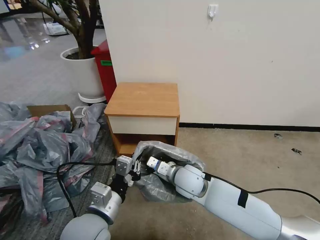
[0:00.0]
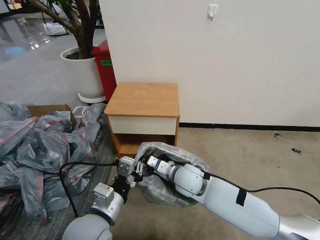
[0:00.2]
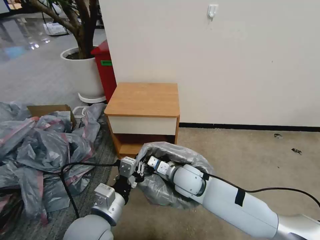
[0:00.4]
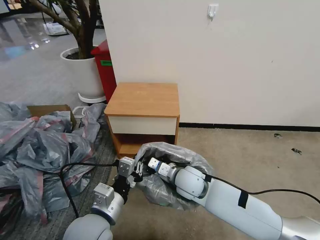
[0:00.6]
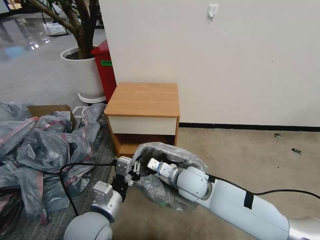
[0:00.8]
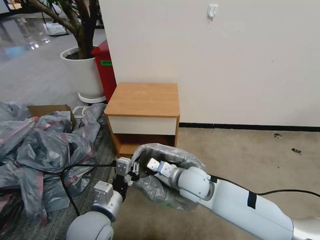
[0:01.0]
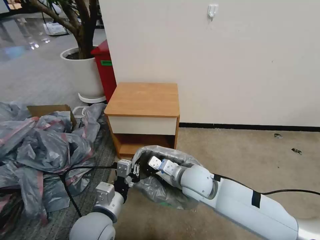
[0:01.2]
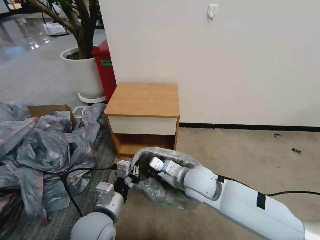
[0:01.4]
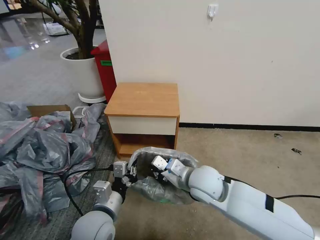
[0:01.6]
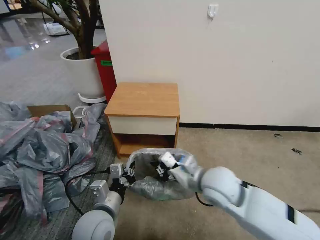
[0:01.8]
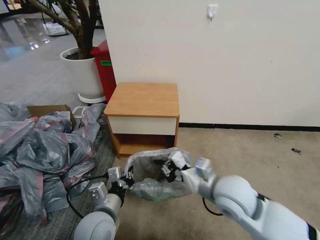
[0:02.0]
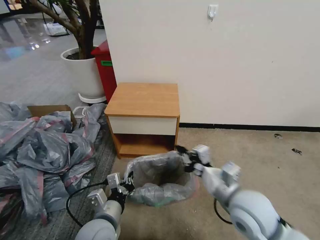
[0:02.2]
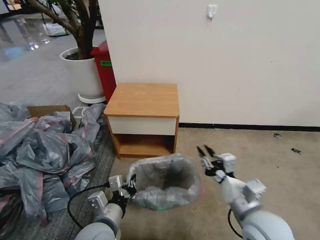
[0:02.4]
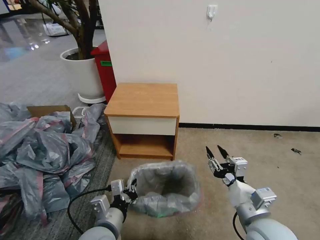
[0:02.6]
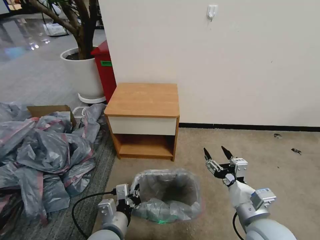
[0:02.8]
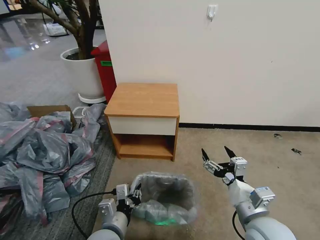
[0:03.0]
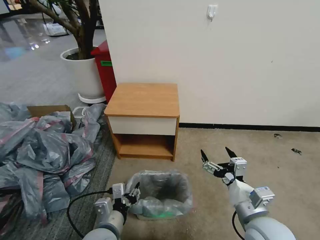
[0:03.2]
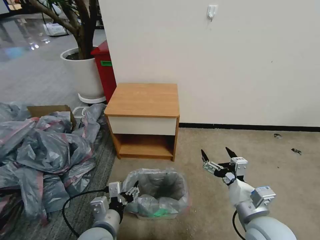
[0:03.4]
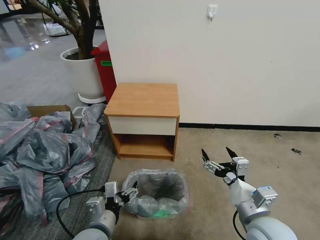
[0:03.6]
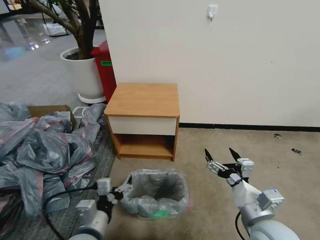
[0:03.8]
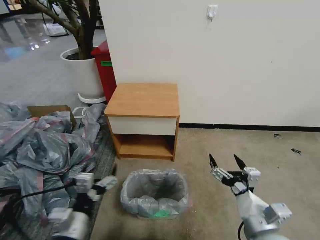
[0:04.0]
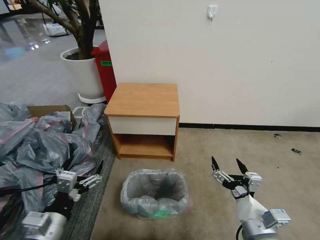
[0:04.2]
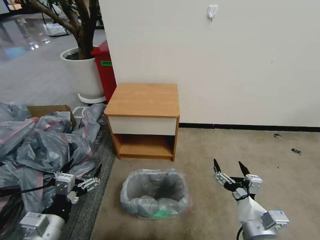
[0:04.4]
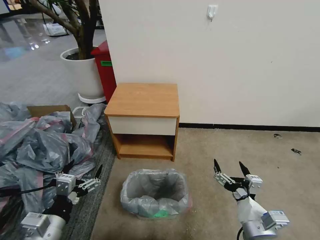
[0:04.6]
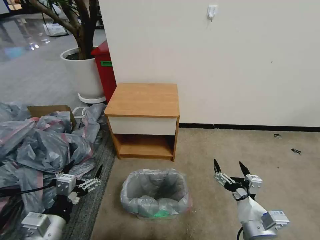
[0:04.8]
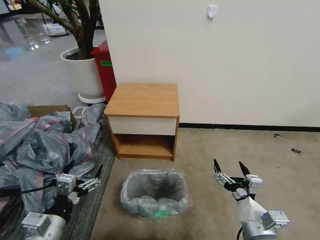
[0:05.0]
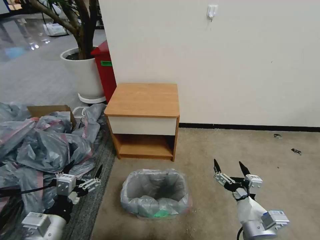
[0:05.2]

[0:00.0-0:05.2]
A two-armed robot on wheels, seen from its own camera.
Task of the whole recording: Pick up the garbage bag from the table and place it over the trash can.
0:00.0 to 0:01.8: The right gripper moves upward and to the right, about 10 cm.
0:01.8 to 0:03.4: The right gripper travels backward and to the right by approximately 15 cm, and opens up, while the left gripper opens.
0:03.4 to 0:05.2: The left gripper heads to the left, covering approximately 10 cm. Meanwhile the right gripper ends up about 5 cm from where it was.

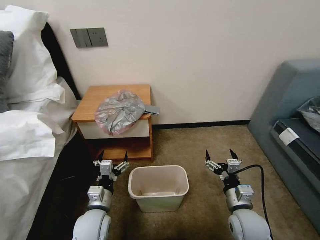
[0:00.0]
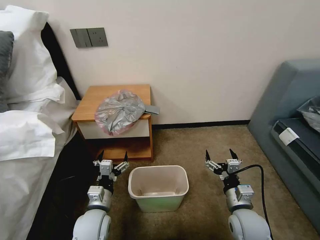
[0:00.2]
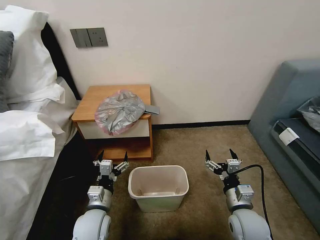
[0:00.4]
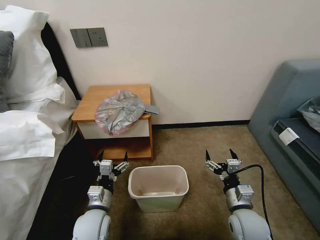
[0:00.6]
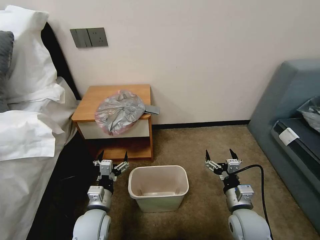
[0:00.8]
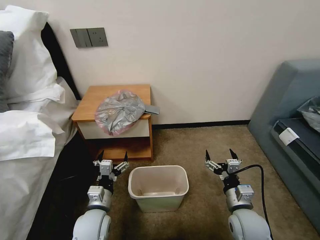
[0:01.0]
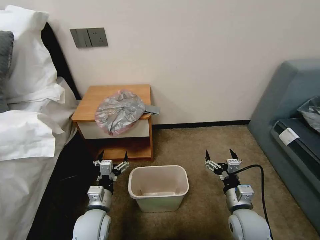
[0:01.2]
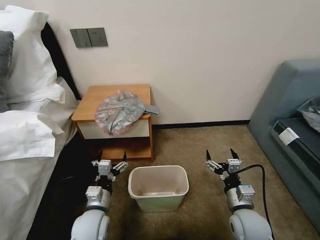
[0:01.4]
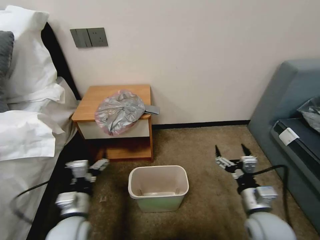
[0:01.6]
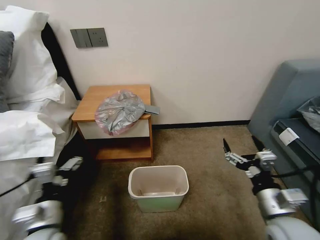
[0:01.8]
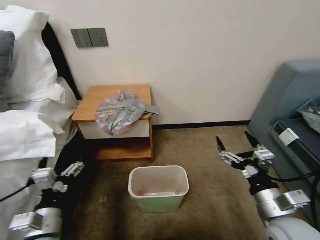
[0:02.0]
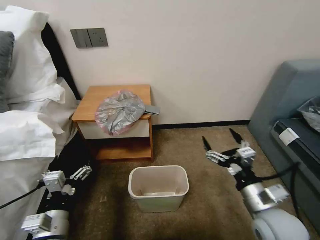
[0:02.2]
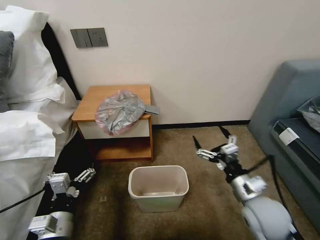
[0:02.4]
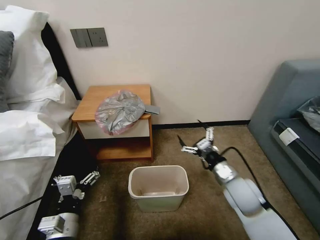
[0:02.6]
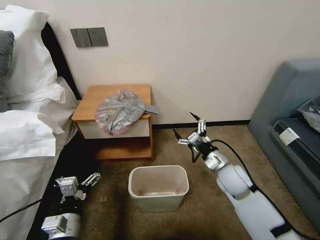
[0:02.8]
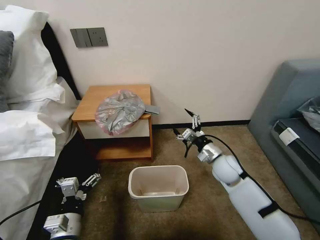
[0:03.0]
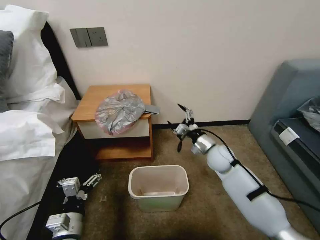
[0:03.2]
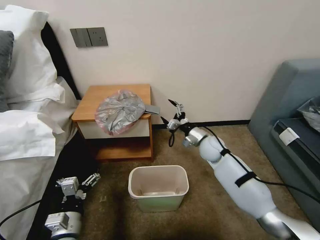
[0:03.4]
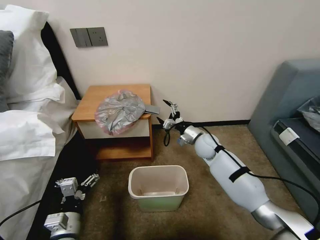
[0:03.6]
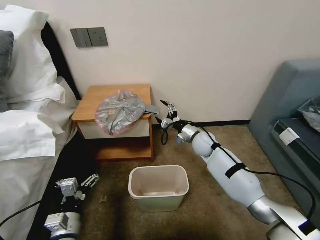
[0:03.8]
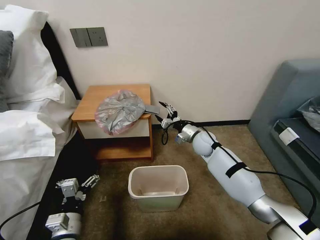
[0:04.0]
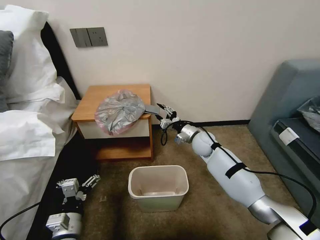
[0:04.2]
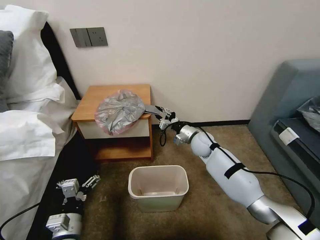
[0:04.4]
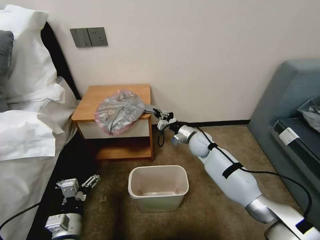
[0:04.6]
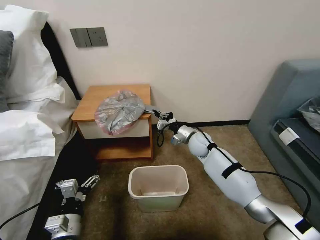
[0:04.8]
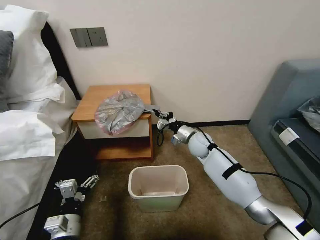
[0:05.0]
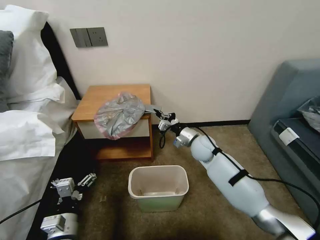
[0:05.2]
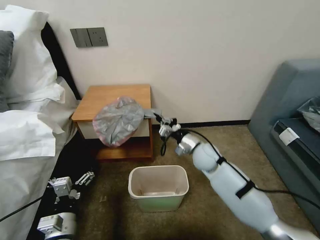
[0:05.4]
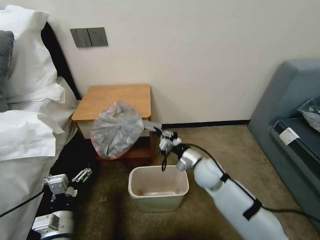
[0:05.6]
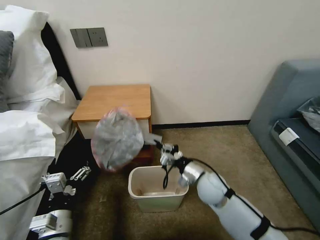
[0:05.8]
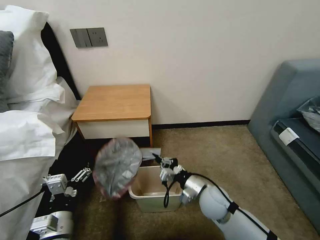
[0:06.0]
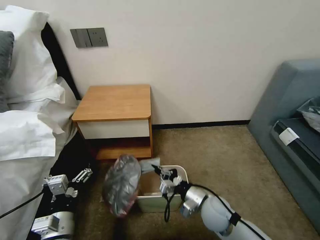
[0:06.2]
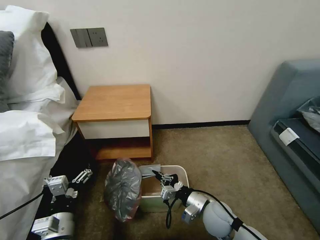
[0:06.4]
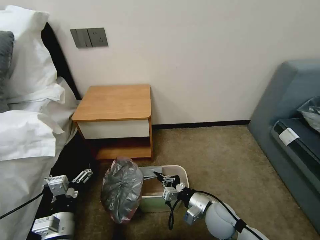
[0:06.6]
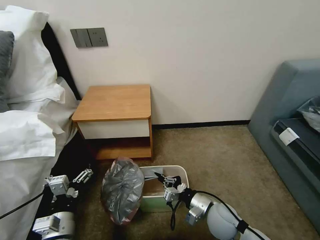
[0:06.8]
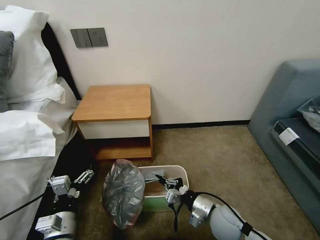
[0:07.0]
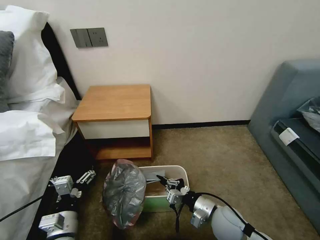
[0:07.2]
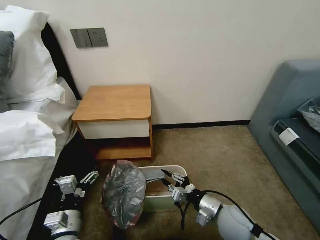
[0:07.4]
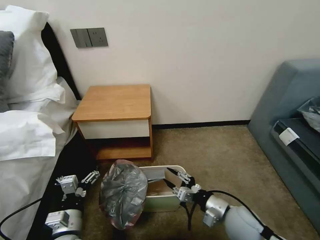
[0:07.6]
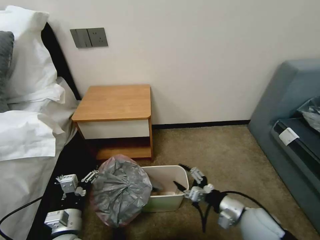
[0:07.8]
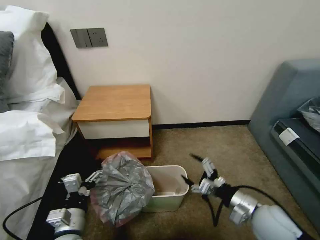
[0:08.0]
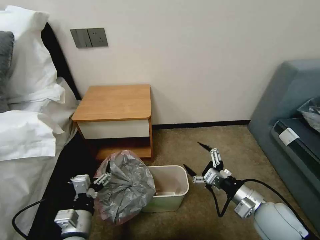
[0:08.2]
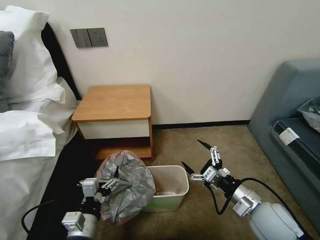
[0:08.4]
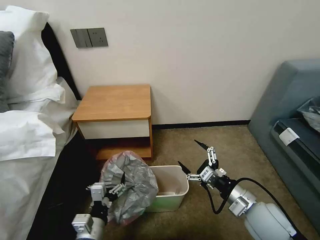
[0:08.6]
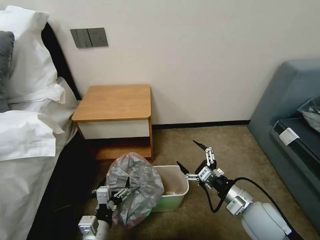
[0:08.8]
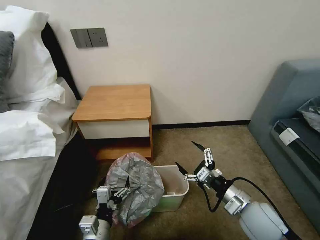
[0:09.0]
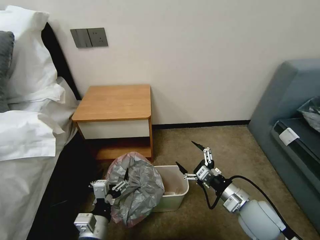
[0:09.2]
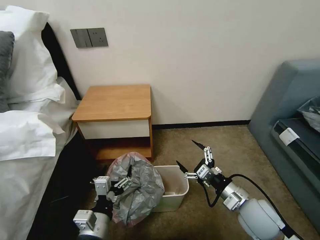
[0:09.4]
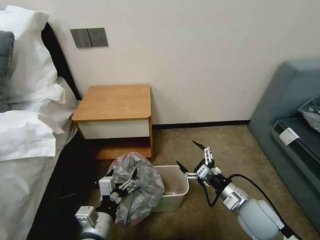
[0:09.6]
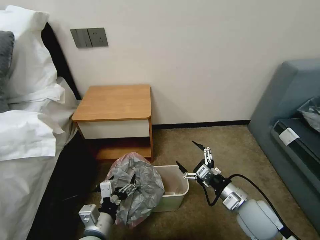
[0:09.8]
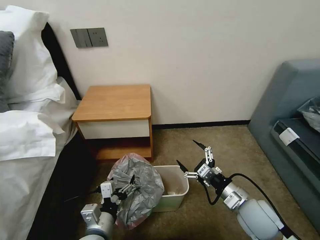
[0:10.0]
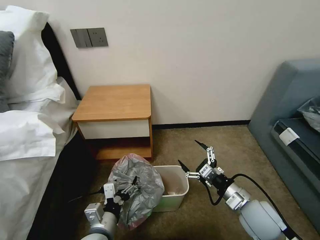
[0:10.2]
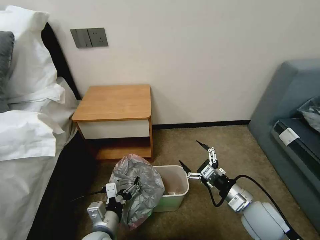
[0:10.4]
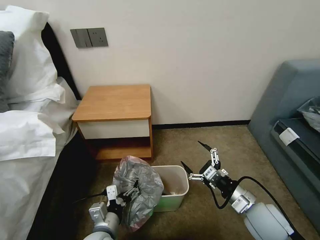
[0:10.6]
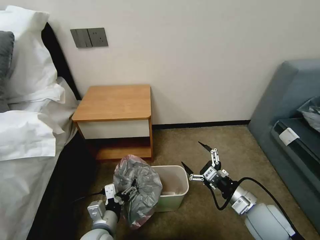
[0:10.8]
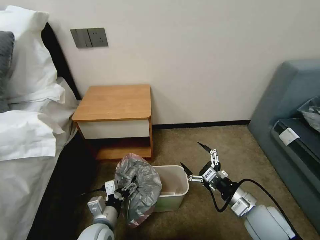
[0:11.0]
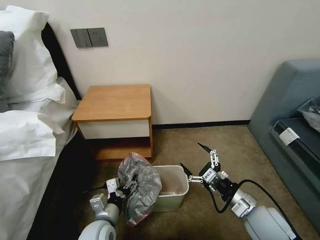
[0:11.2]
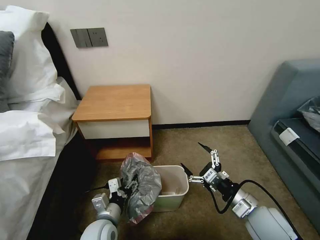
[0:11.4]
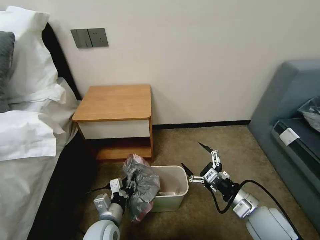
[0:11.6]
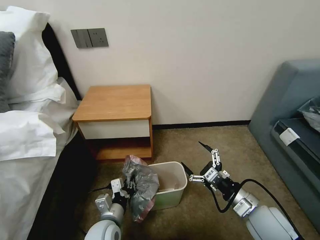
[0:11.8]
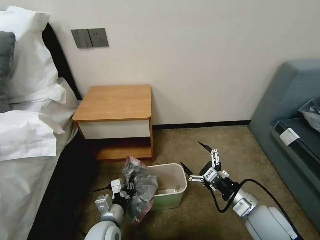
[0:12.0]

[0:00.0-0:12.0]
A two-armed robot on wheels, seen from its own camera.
Task of the whole recording: Pick up the garbage bag from the table and place it over the trash can.
0:01.6 to 0:03.0: The right gripper moves forward, roughly 20 cm. The left gripper heads backward, covering roughly 5 cm.
0:03.0 to 0:04.4: The right gripper travels forward and to the left by approximately 10 cm, and closes.
0:04.4 to 0:06.0: The right gripper is displaced backward by about 20 cm, and closes its fingers.
0:06.0 to 0:07.6: The right gripper goes approximately 10 cm backward and to the right, and opens its fingers.
0:07.6 to 0:09.0: The left gripper heads to the right, covering roughly 5 cm. The right gripper opens its fingers.
0:09.0 to 0:10.4: The grippers move only a little.
0:10.4 to 0:12.0: The left gripper closes up.

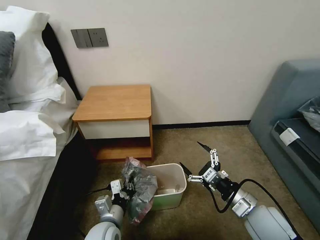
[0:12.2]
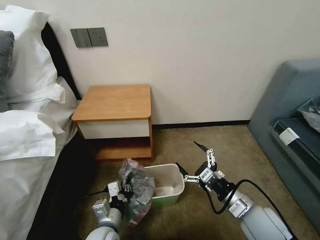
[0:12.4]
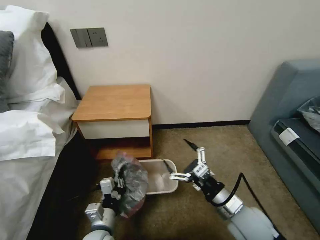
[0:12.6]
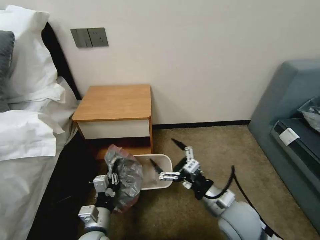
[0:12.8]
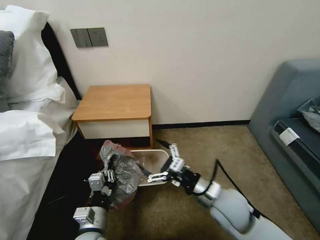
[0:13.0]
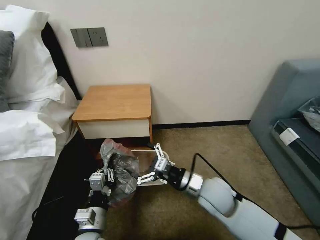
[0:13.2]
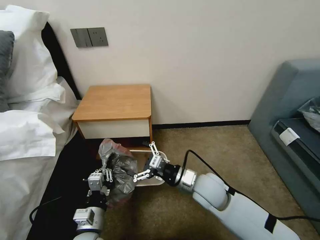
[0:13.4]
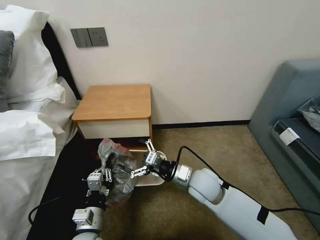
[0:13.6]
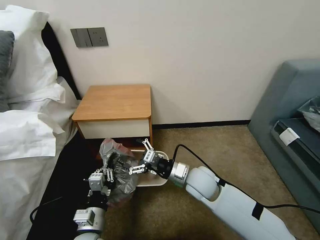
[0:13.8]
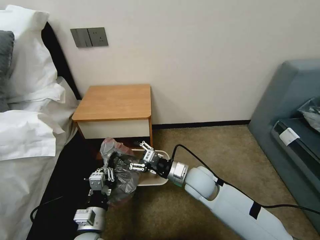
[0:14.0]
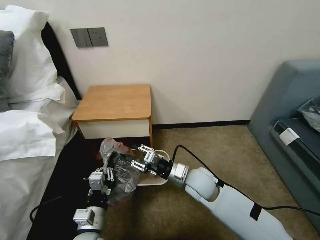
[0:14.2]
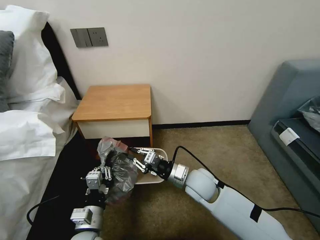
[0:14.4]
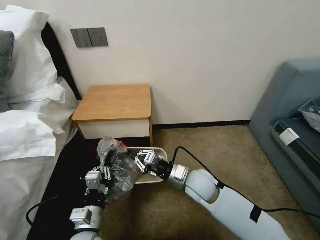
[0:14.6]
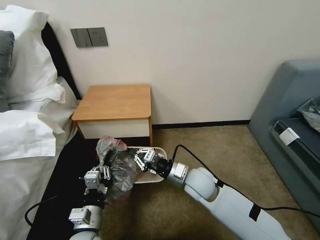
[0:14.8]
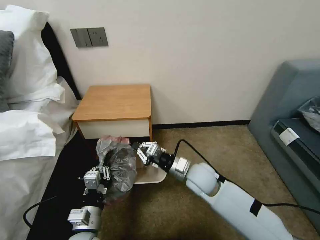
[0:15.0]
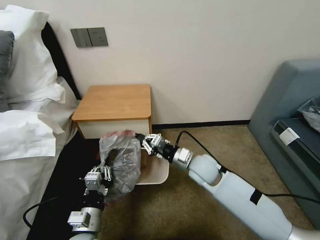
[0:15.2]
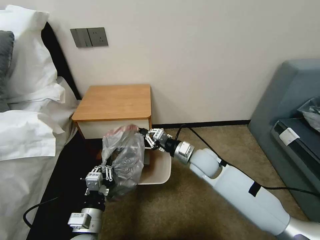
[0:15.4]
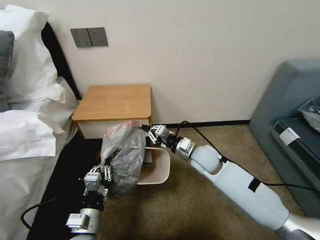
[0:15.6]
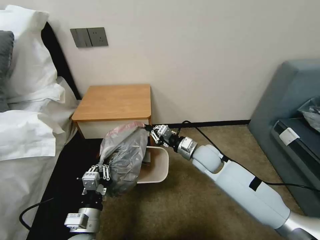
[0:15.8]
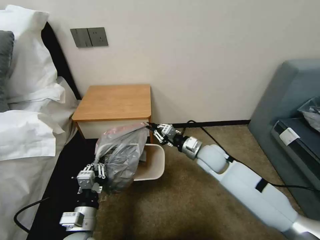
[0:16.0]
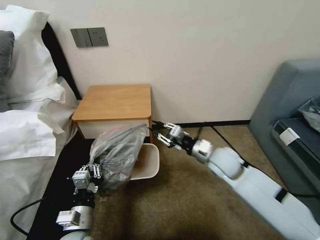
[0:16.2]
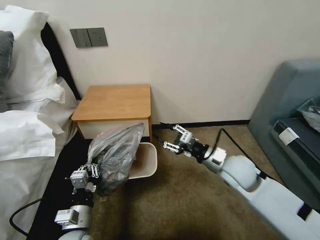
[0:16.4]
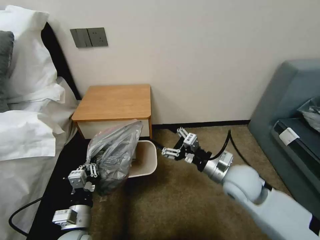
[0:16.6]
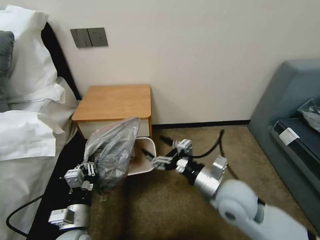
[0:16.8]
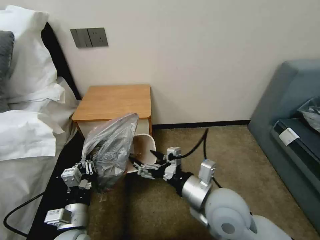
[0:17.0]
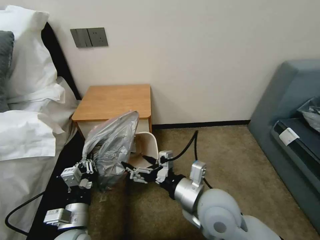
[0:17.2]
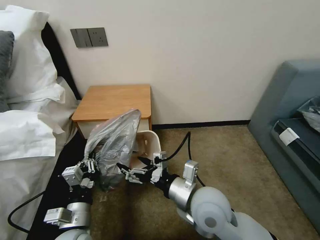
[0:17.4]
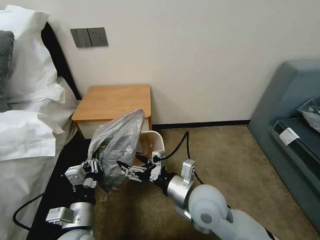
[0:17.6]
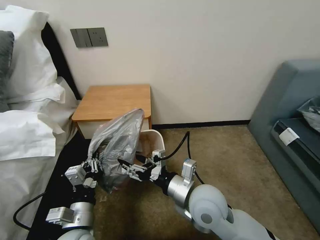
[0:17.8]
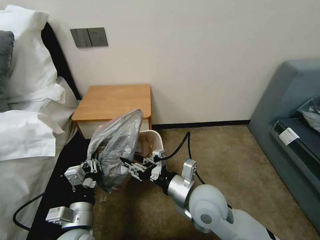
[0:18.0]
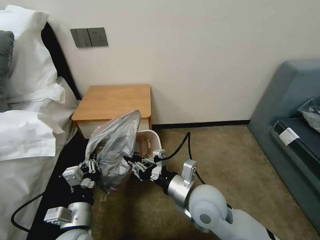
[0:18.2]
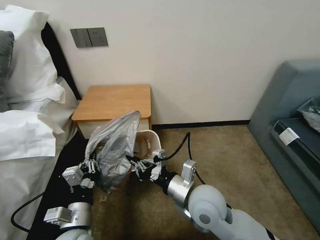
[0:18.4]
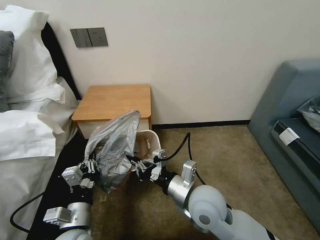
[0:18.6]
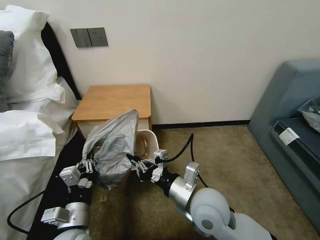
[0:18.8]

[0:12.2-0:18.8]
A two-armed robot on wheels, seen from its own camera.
Task of the whole recording: Pick up the garbage bag from the table and place it over the trash can.
0:12.2 to 0:13.8: The left gripper moves approximately 5 cm. The right gripper shifts approximately 20 cm to the left and forward.
0:13.8 to 0:15.4: The right gripper travels forward by approximately 5 cm, and closes its fingers.
0:15.4 to 0:17.2: The right gripper shifts some 20 cm backward and upward, and opens up.
0:17.2 to 0:18.8: The right gripper closes.
